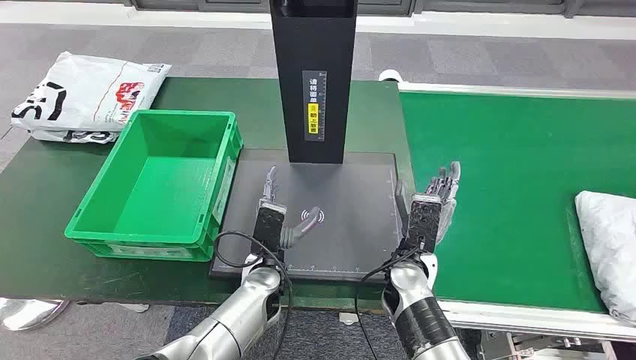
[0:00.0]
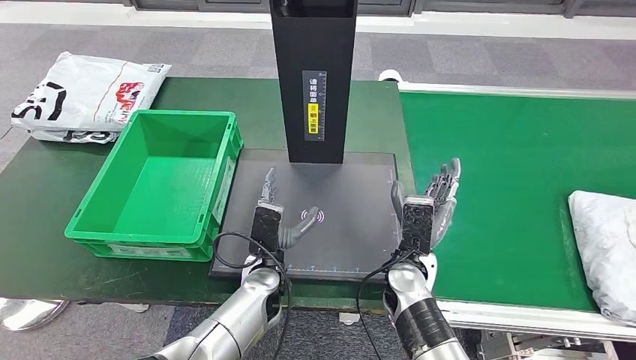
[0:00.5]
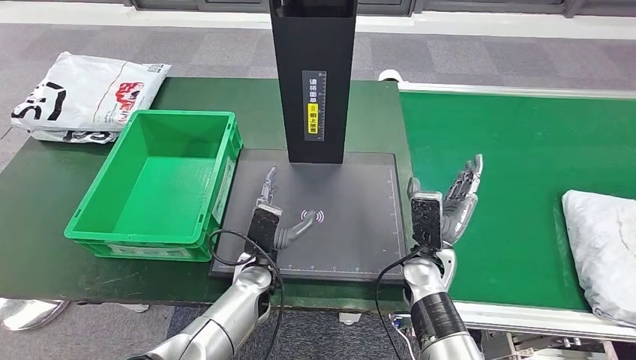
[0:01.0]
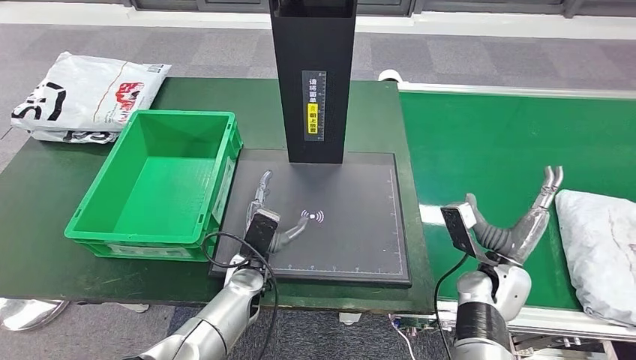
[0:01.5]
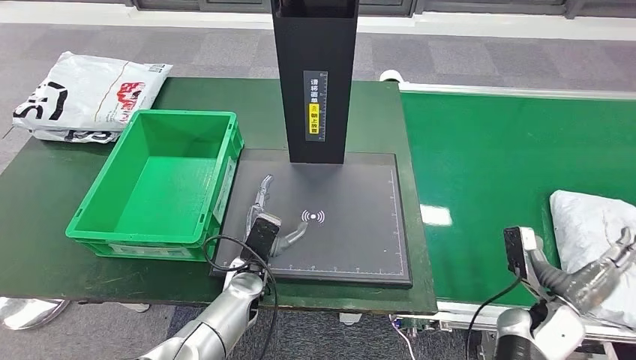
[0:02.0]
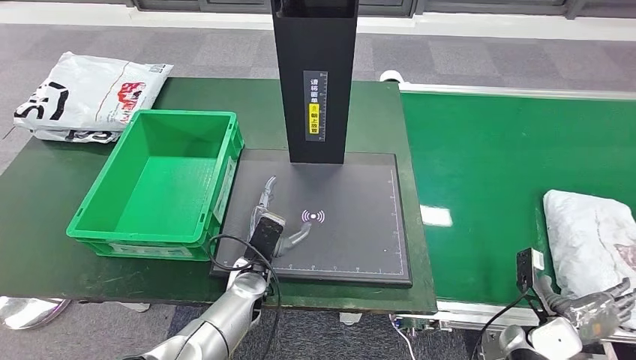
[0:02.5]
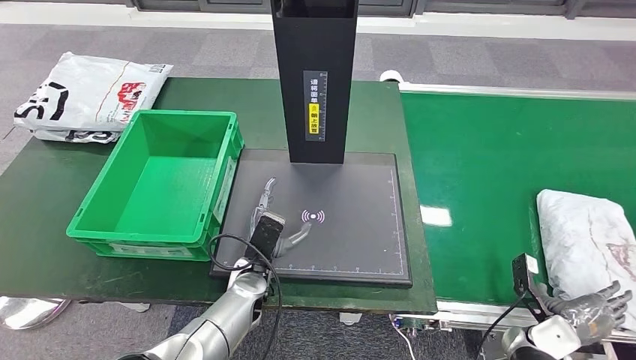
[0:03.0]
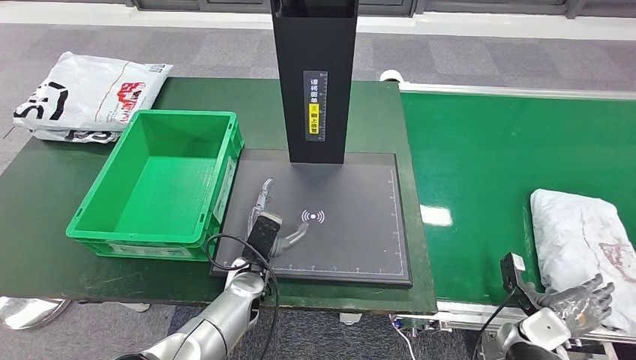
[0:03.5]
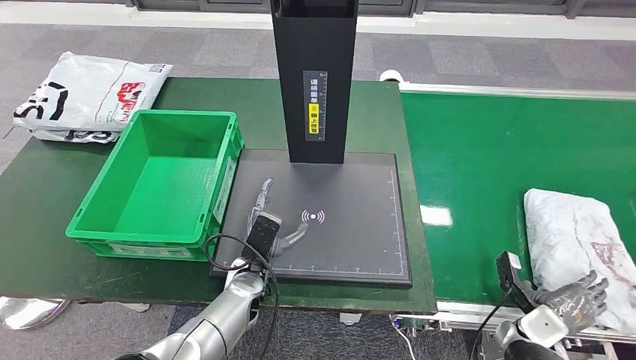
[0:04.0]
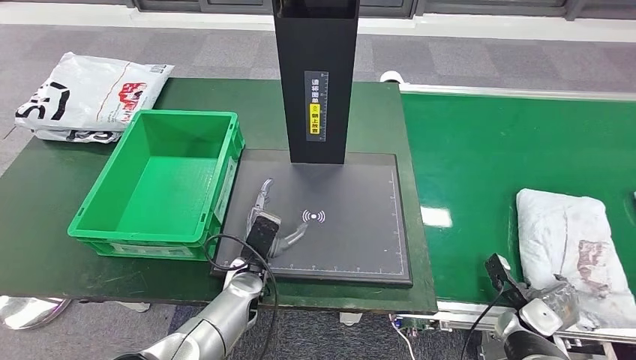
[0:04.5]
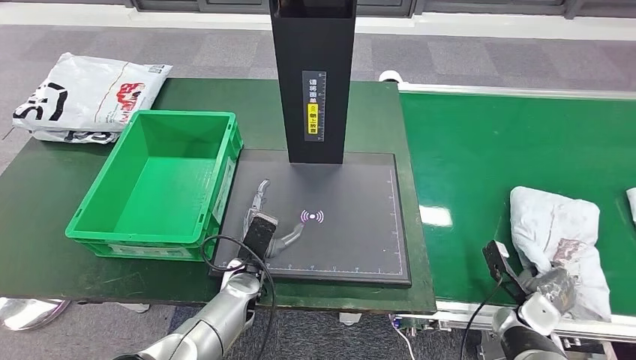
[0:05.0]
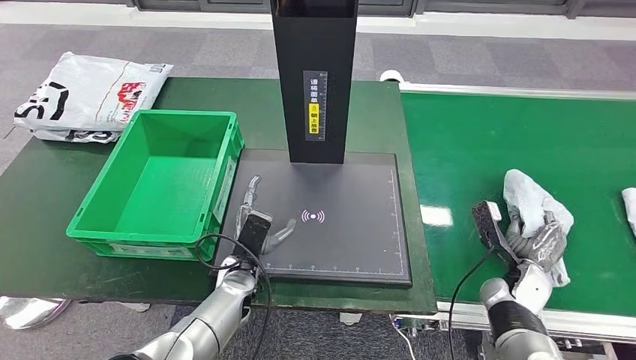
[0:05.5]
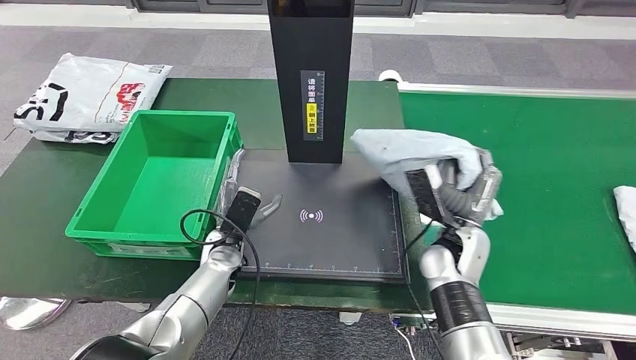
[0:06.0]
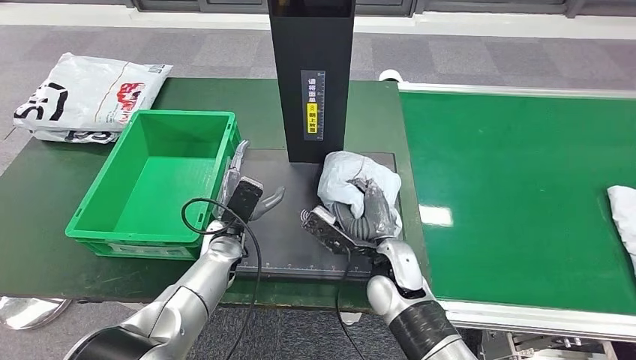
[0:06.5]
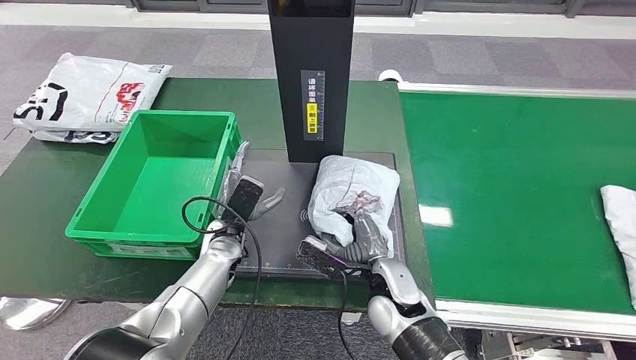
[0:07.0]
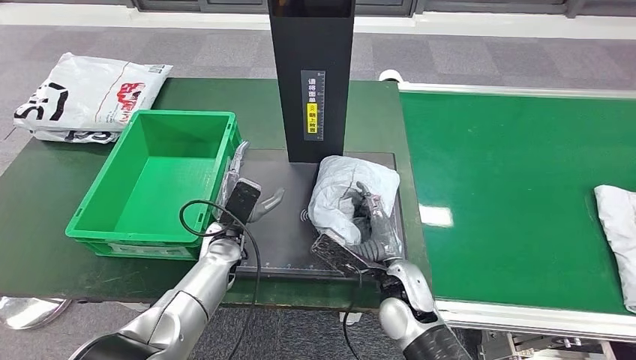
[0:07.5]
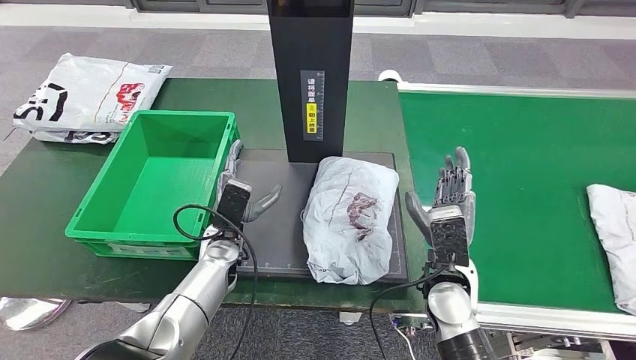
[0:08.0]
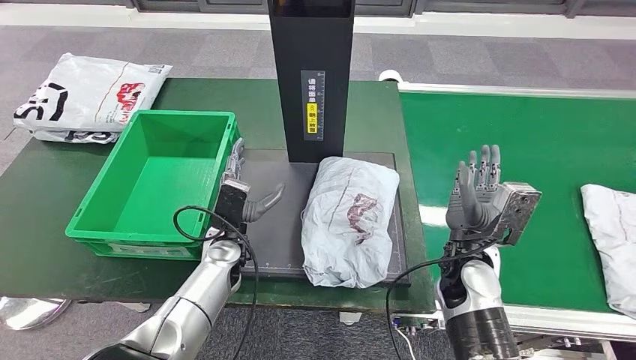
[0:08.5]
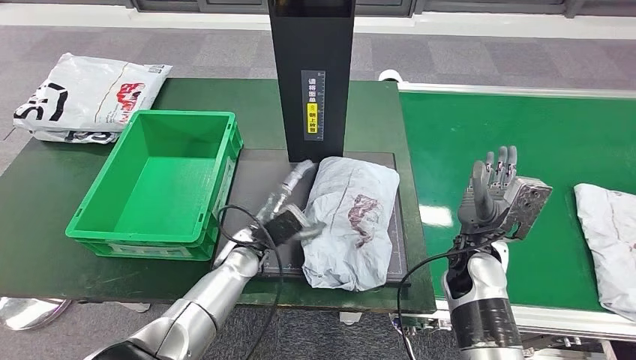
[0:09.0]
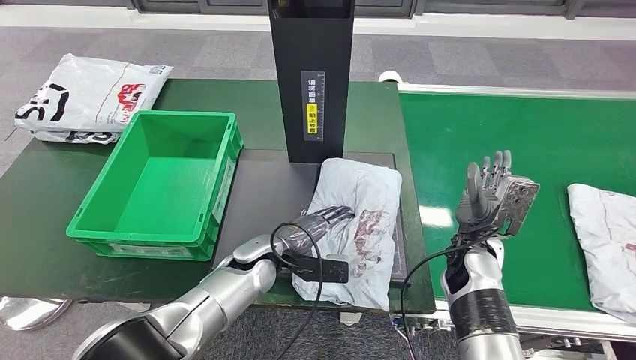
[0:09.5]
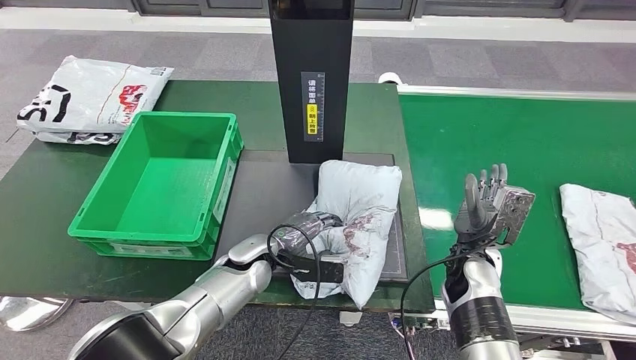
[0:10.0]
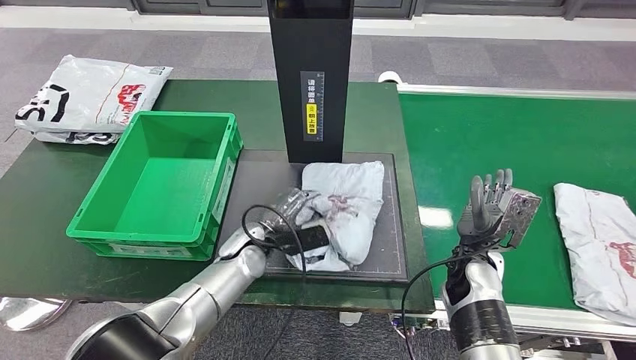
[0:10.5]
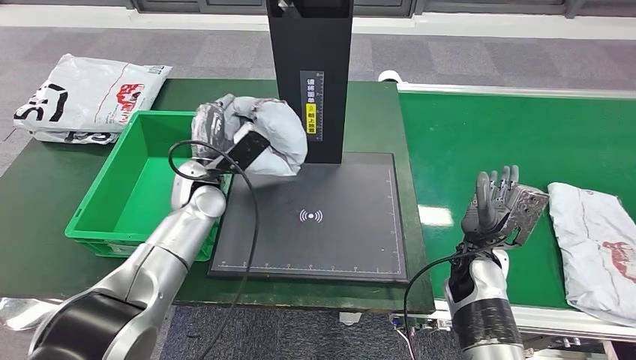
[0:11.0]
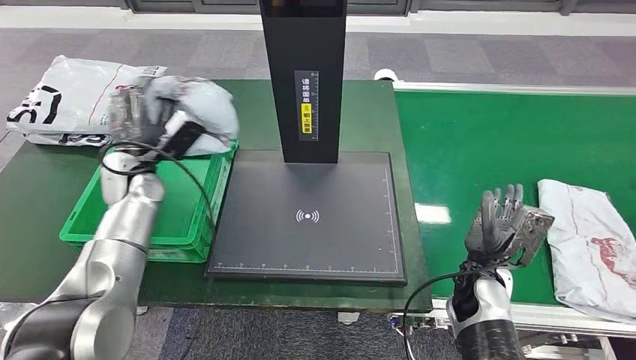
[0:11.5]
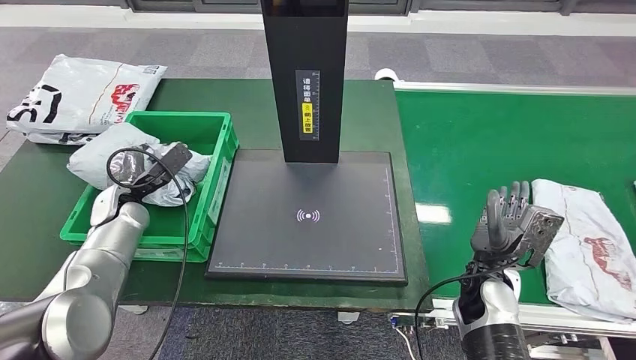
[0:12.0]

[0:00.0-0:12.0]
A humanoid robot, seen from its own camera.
Step, 0:00.0 to 0:05.5: Take the parcel off the conveyor belt.
Step, 0:06.0 to 0:08.0: Place the parcel onto the inbound machine.
Step, 0:08.5 to 0:10.5: Pick up the parcel from the inbound machine.
0:02.0 to 0:04.0: The right hand is displaced downward by roughly 5 cm.
0:06.0 to 0:08.0: The right hand travels backward by some 5 cm, and reaches some 10 cm to the left, then returns.

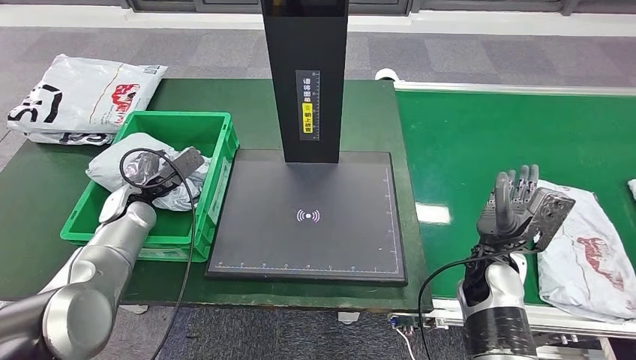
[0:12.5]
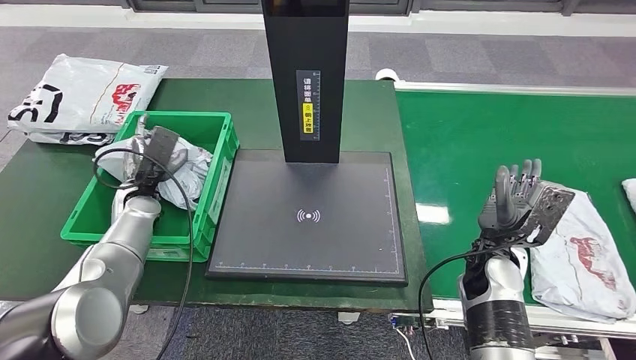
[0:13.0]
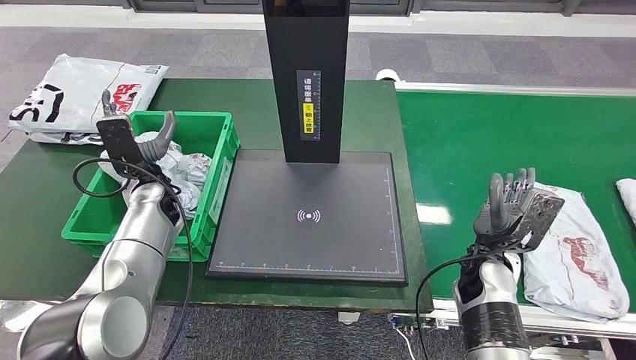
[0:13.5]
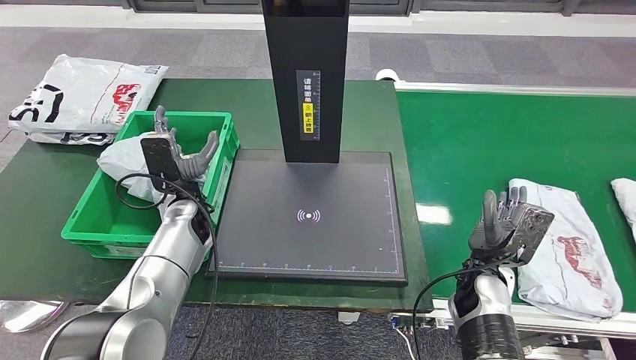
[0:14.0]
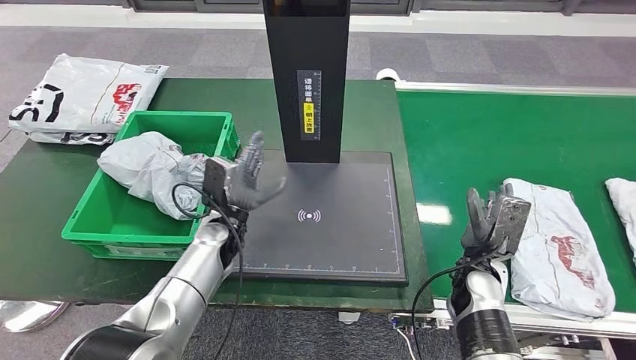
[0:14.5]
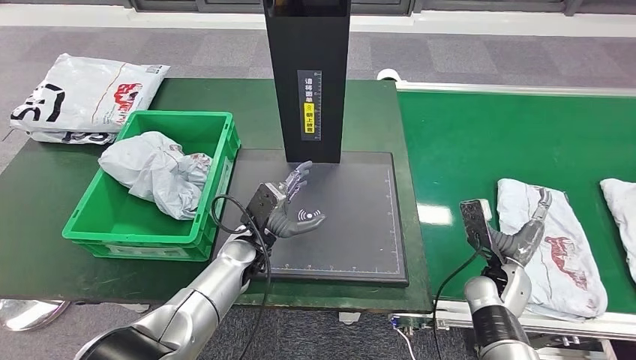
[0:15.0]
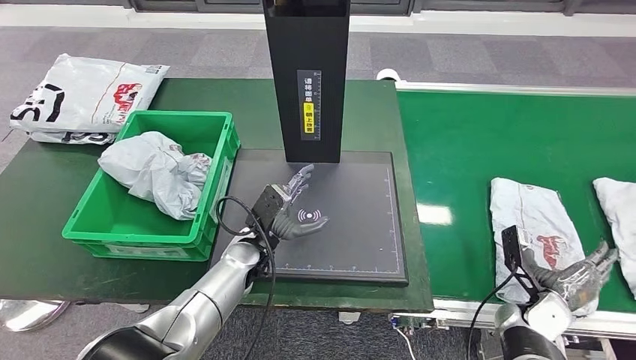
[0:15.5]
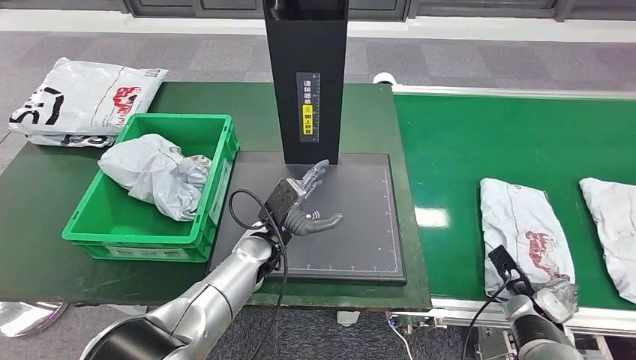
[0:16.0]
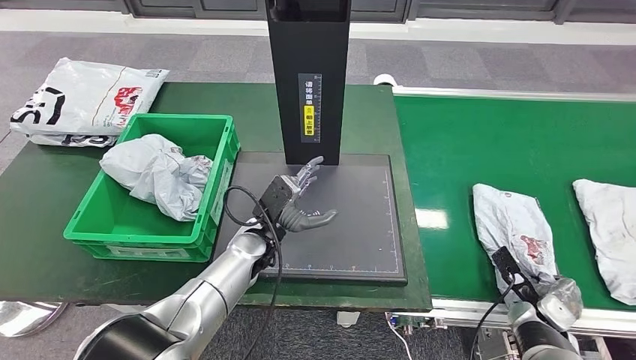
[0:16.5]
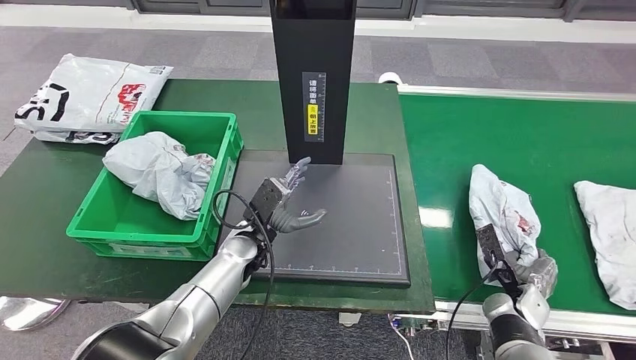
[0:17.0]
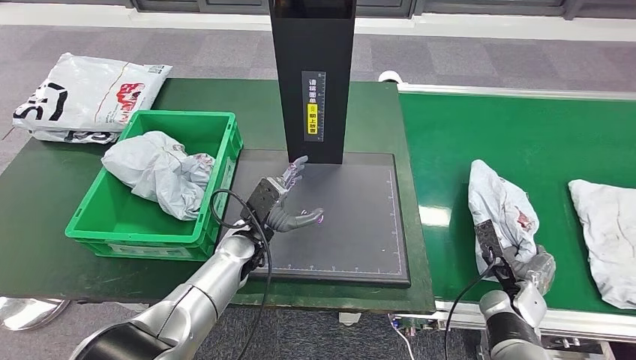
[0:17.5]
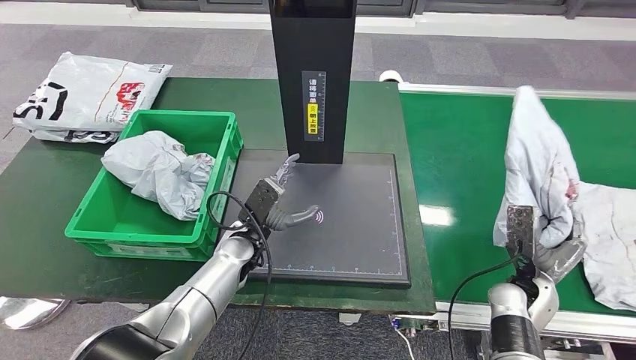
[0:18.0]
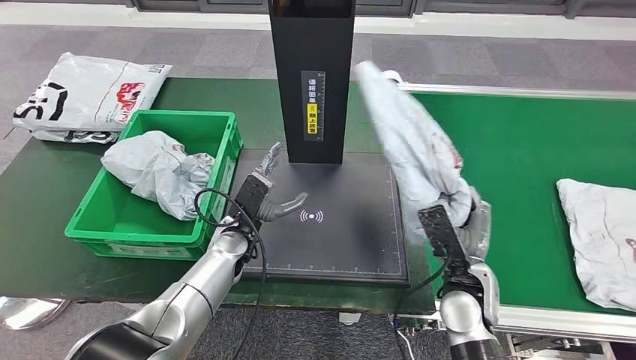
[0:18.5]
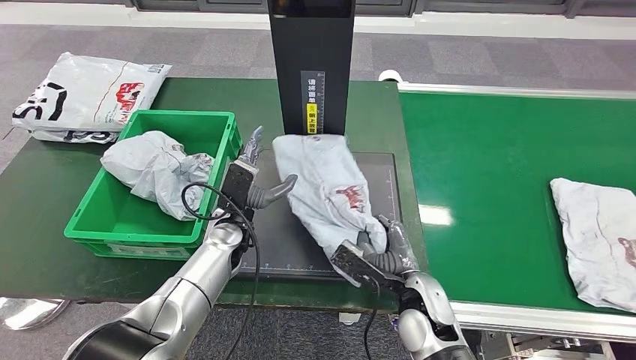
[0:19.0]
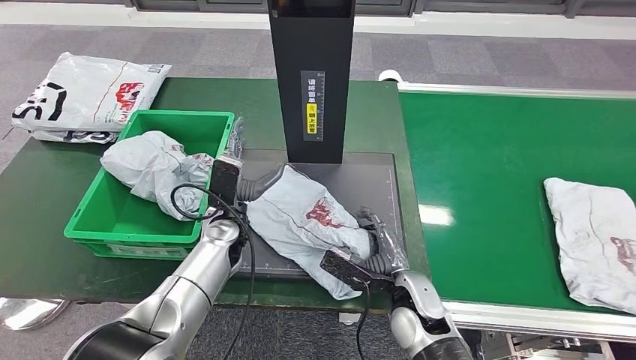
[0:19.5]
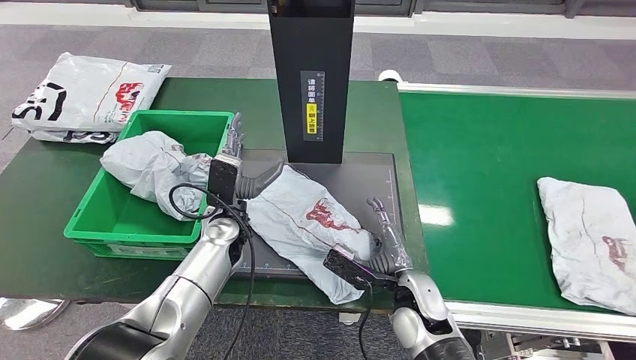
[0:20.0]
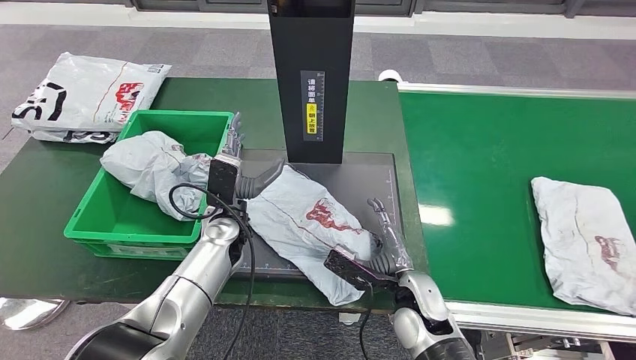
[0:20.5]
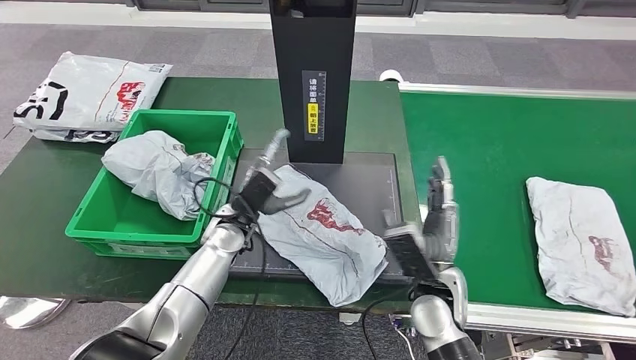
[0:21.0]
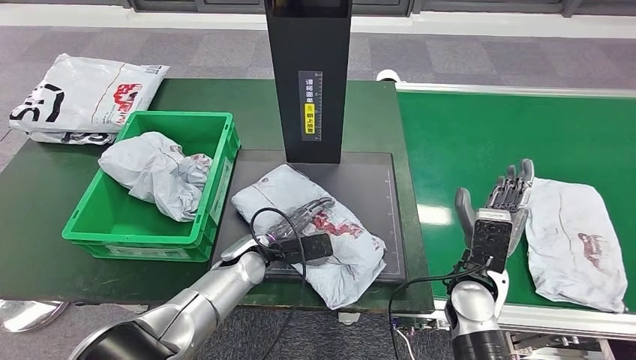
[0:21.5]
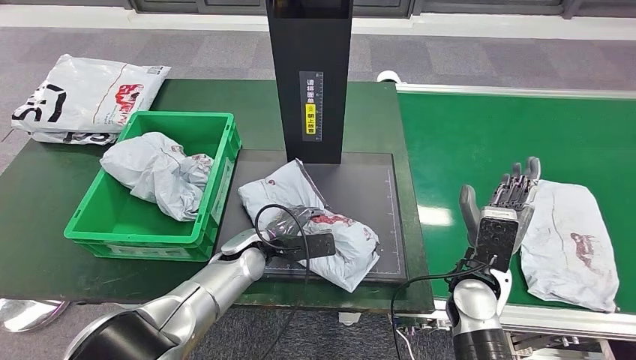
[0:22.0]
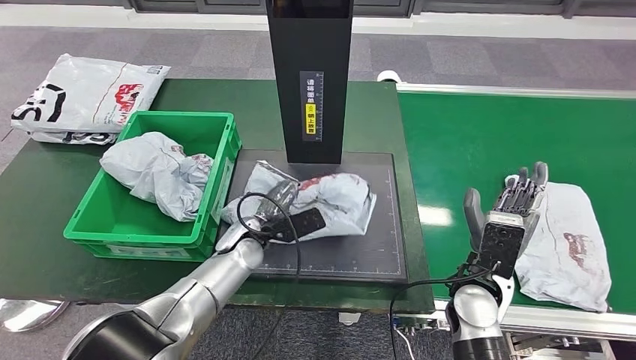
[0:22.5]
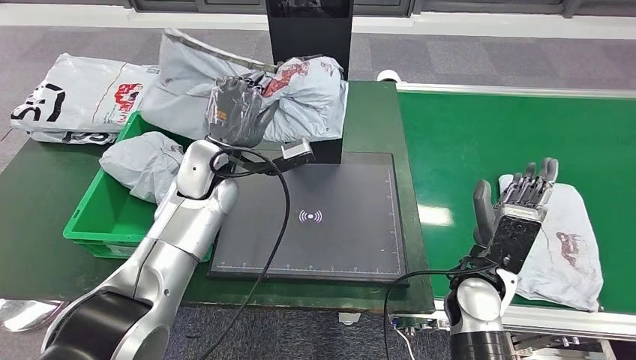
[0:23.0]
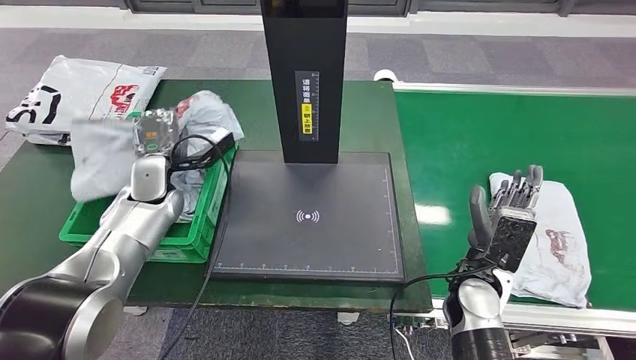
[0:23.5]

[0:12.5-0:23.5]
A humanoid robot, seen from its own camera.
Step, 0:12.5 to 0:14.0: Put the parcel inside the courier box.
Step, 0:14.5 to 0:18.0: Pick up the parcel from the conveyor belt.
Step, 0:18.5 to 0:20.5: Place the parcel onto the inbound machine.
Step, 0:21.0 to 0:22.5: Pick up the parcel from the inbound machine.
